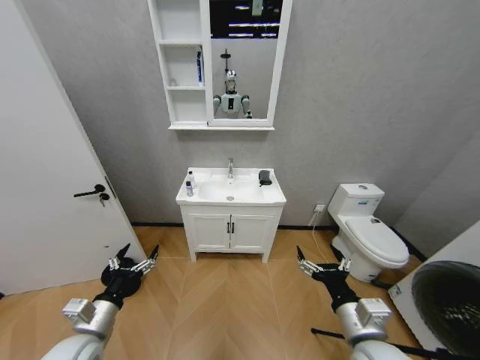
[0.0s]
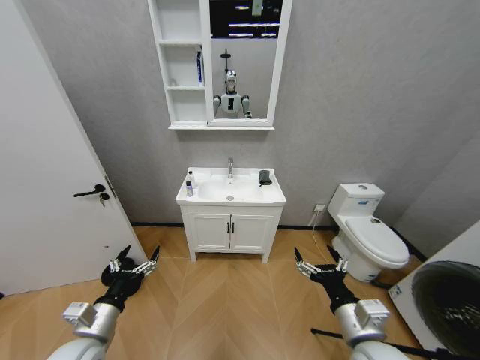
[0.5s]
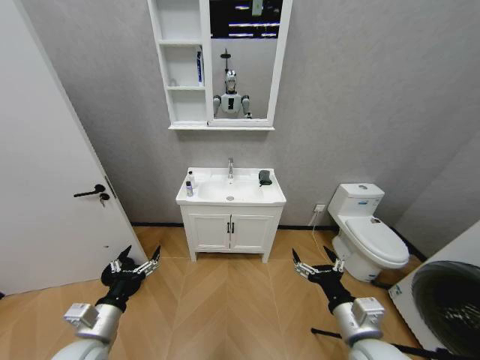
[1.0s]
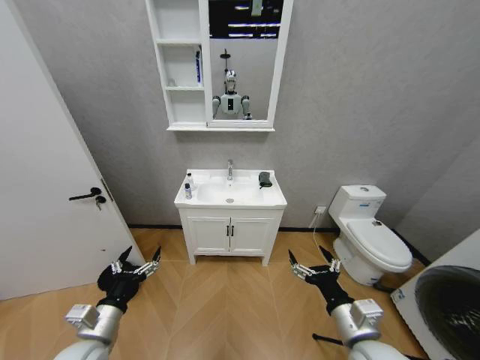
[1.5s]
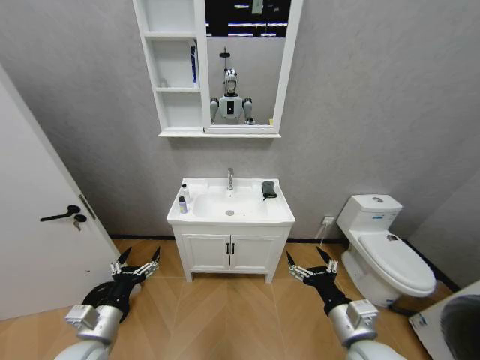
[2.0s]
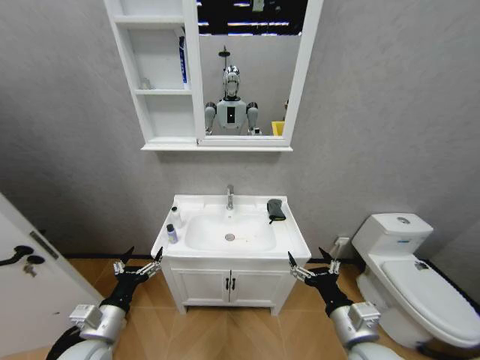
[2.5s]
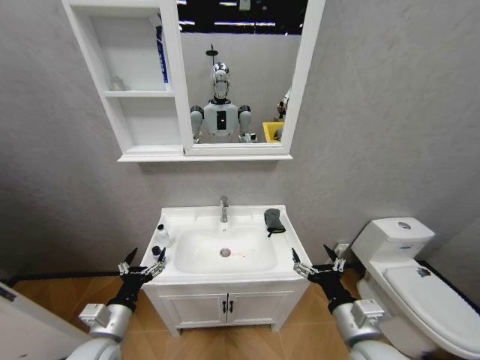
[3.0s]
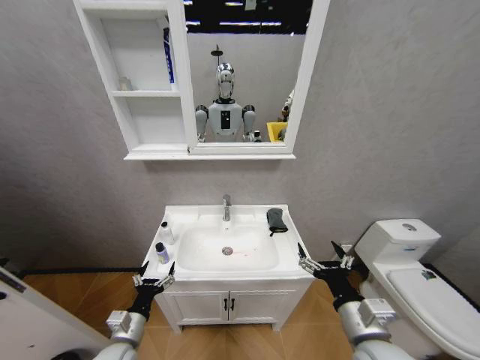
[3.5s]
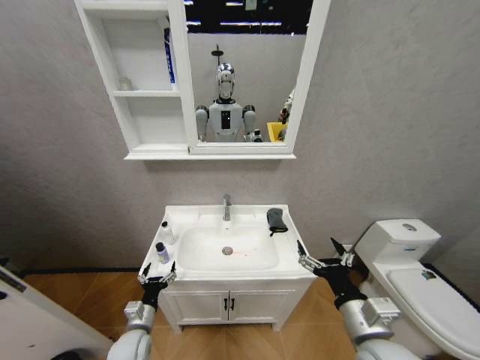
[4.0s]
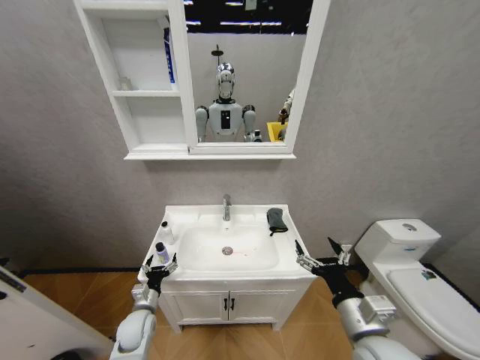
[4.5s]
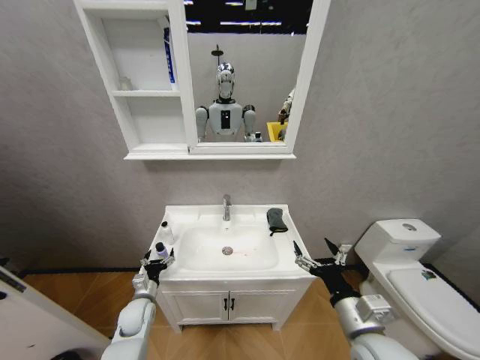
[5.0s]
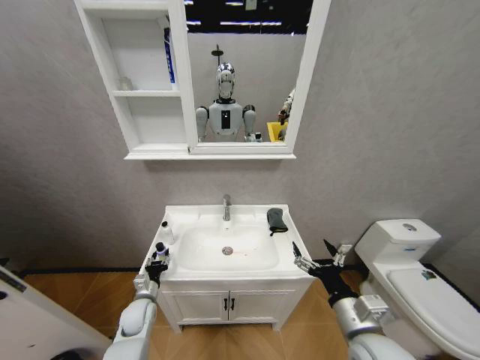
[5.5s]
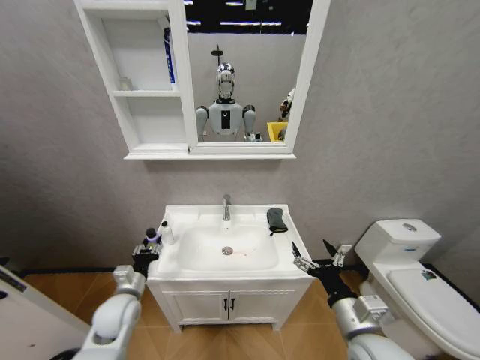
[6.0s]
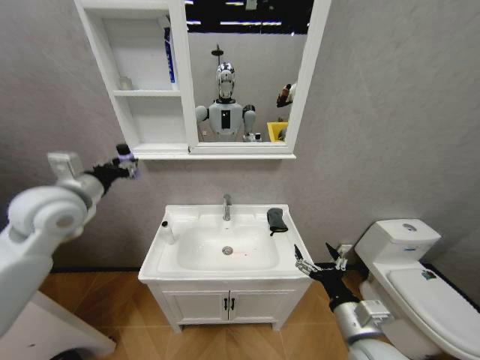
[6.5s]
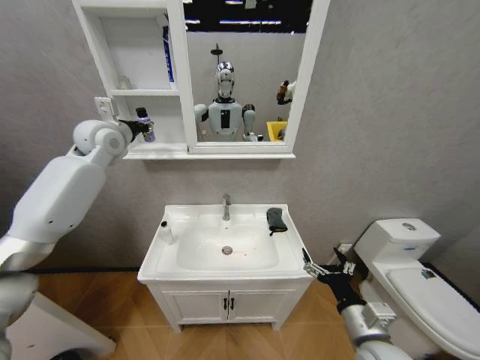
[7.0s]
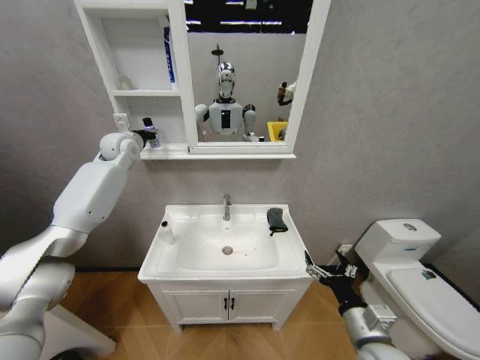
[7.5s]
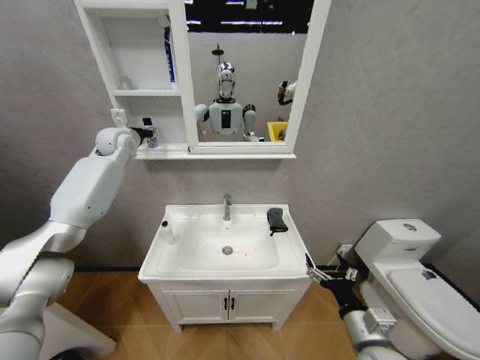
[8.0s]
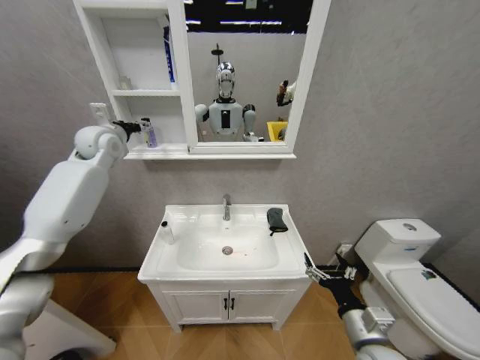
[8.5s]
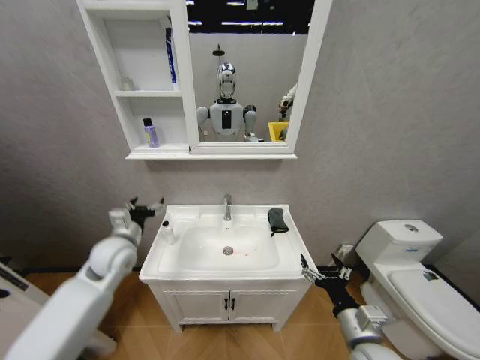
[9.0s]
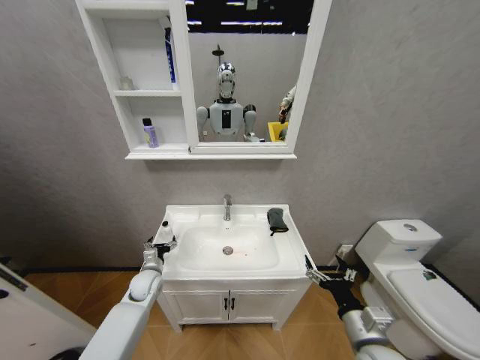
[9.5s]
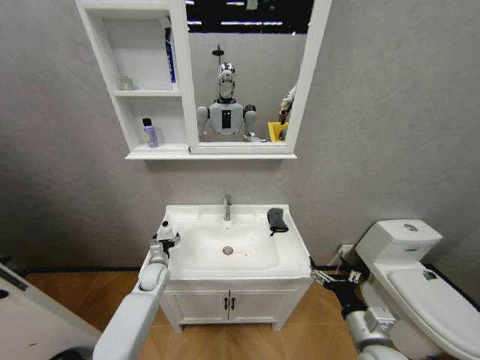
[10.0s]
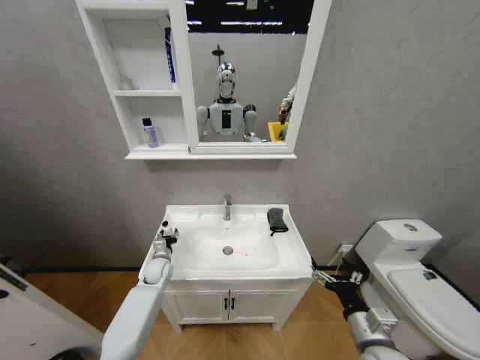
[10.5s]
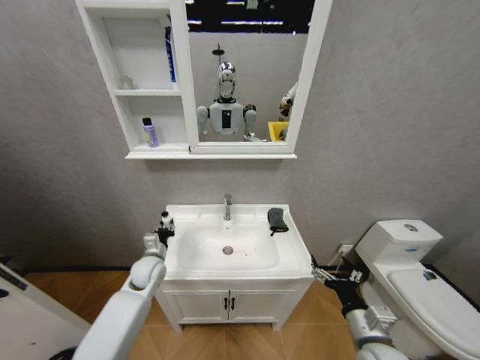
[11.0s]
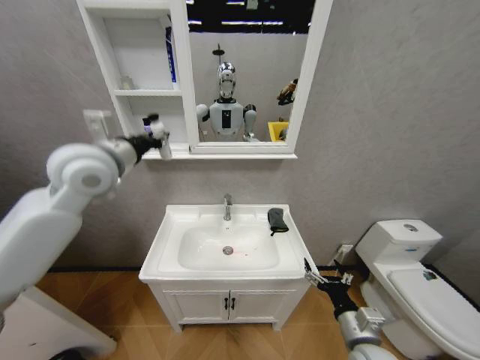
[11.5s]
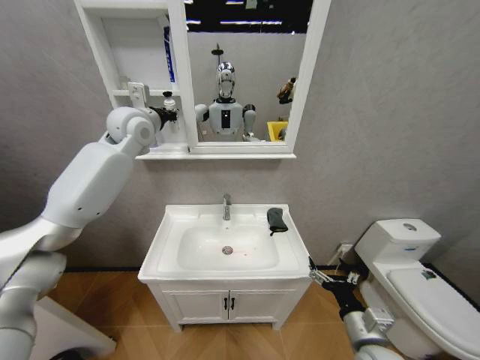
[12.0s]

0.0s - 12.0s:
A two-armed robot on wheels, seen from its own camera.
Task of the whole recording: Move facial cleanser and shampoo from washbasin to cabinet, then wipe washbasin with towel.
2.0s - 4.0s: The left gripper moves downward and forward, some 15 cm.
4.0s - 6.0s: The left gripper goes roughly 15 cm upward, and closes its fingers.
6.0s - 8.0s: The left gripper goes about 40 cm upward and forward. Meanwhile the right gripper changes place by about 5 cm.
8.0s - 10.0s: The left gripper travels downward by some 40 cm, and opens.
10.0s - 12.0s: The left gripper heads upward, covering about 50 cm, and closes.

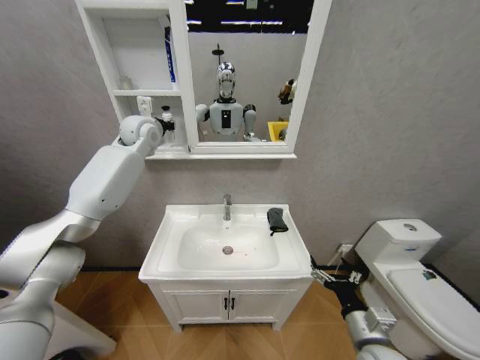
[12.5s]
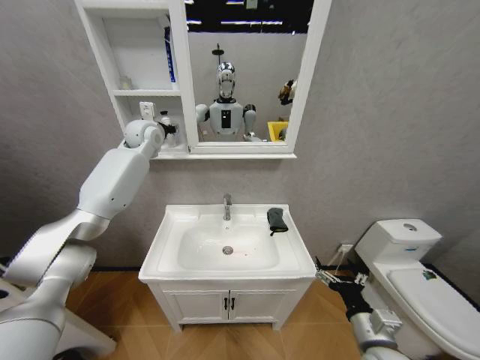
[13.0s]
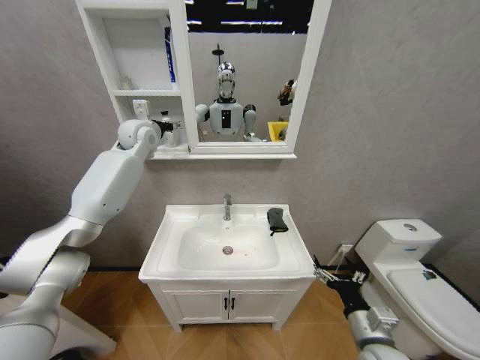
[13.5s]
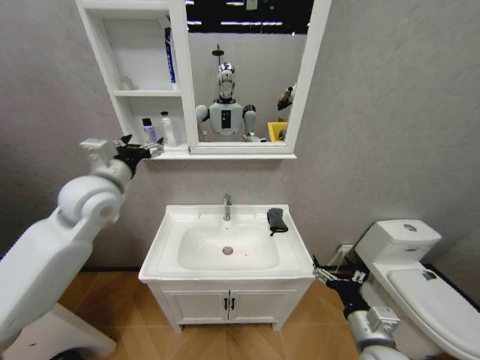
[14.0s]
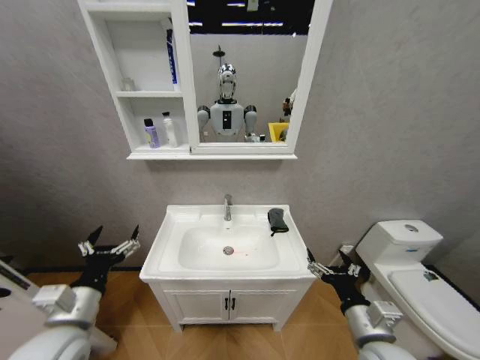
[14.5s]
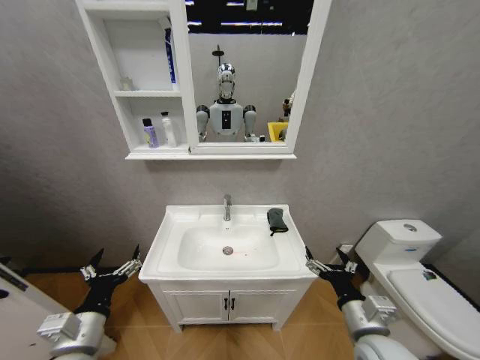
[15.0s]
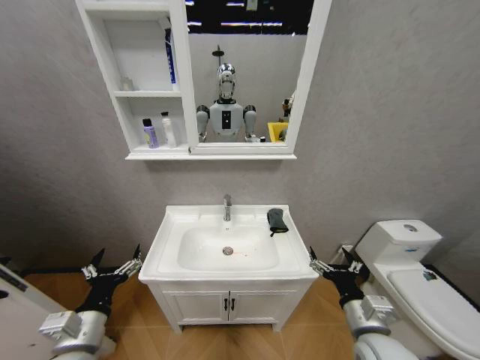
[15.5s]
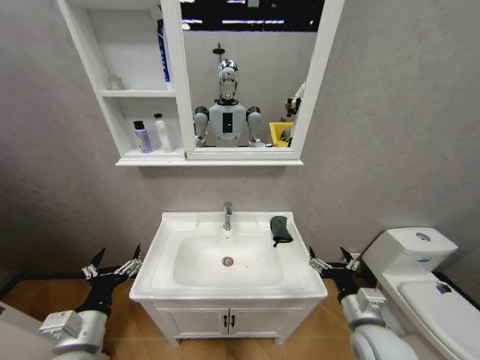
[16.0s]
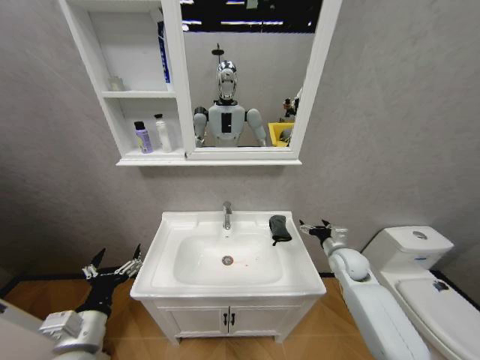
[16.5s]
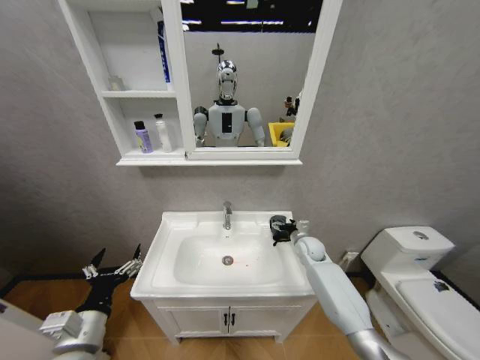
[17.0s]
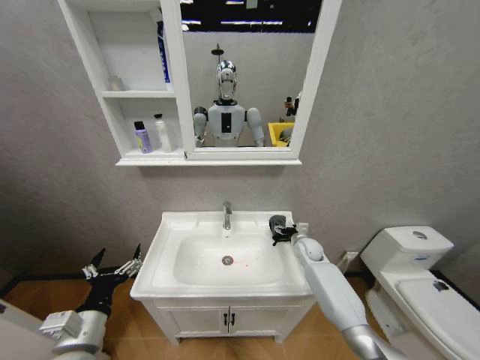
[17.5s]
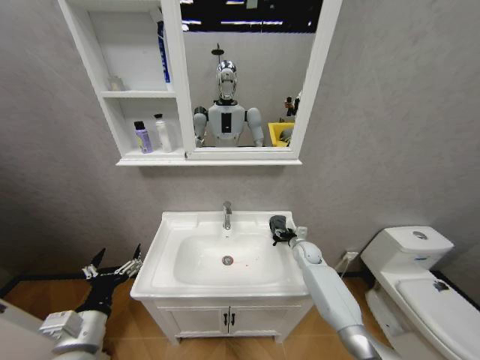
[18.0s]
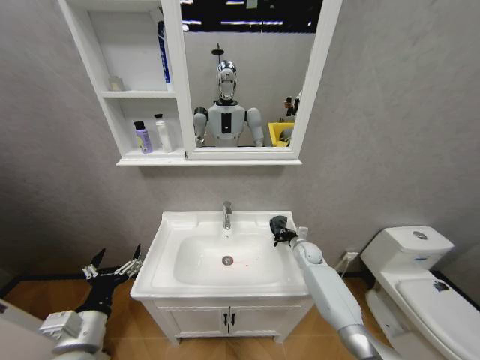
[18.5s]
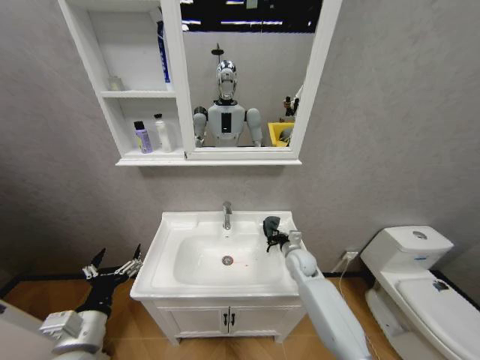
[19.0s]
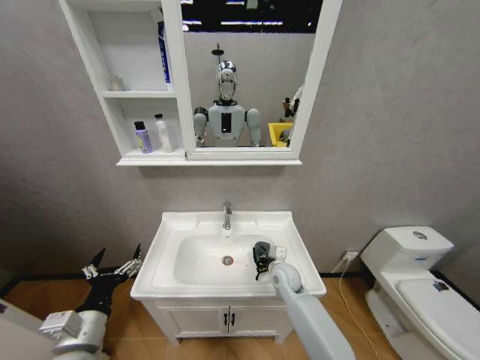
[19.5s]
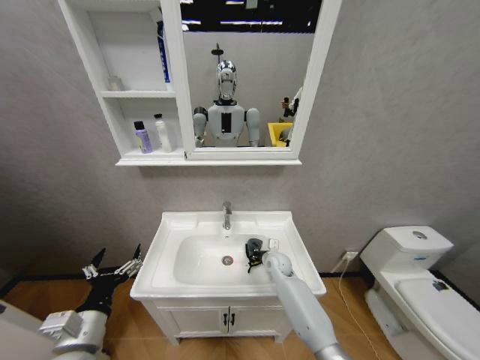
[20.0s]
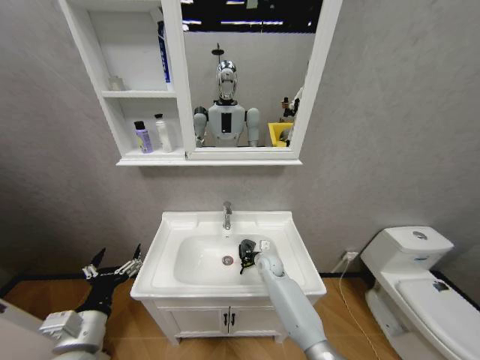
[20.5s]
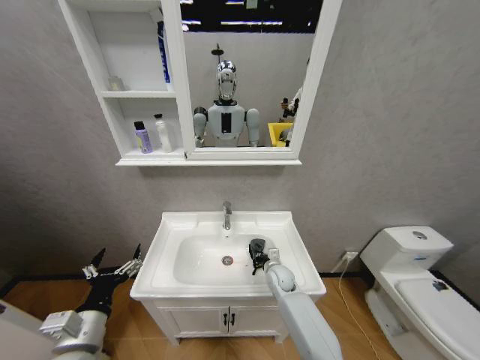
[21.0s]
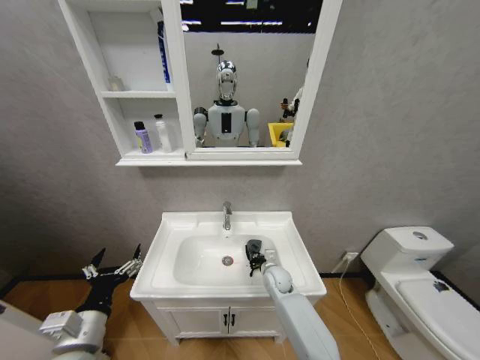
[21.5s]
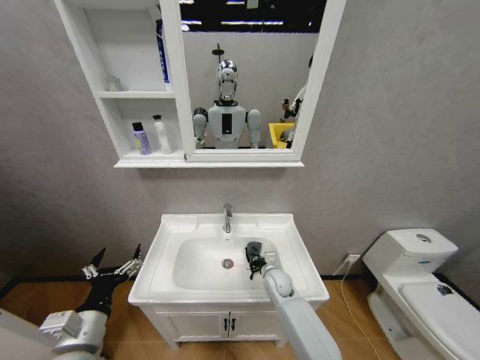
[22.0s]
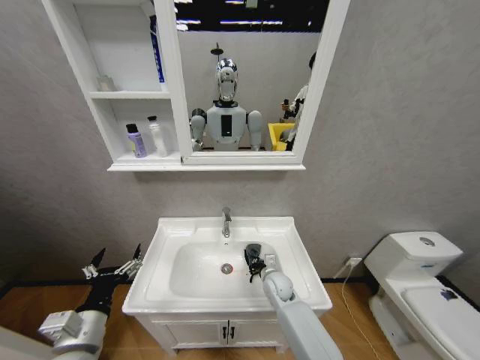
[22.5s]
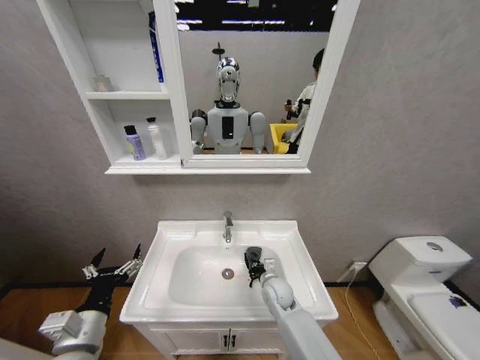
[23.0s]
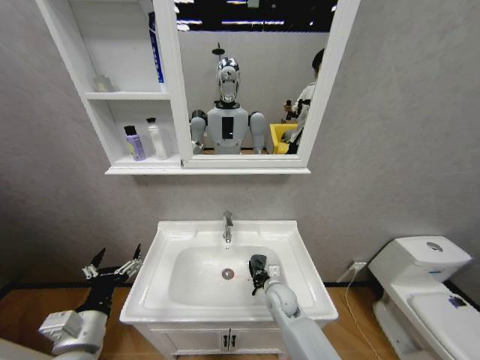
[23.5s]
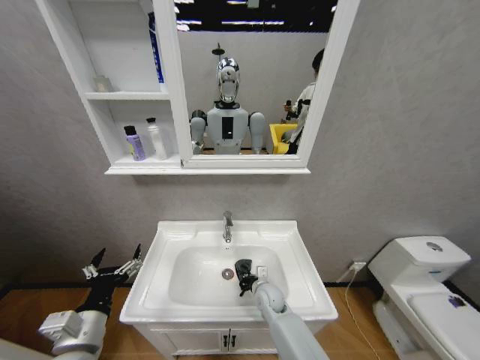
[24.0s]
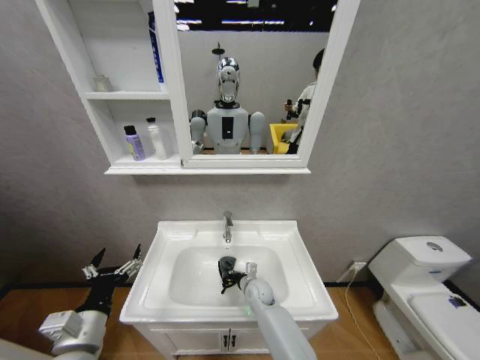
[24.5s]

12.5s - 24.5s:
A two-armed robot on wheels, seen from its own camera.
Task of the whole recording: Move facial cleanser and shampoo from washbasin to cabinet, then wipe washbasin with towel.
12.5s - 14.5s: The right gripper ends up about 5 cm from where it was. The left gripper is displaced backward and downward by roughly 50 cm, and opens its fingers.
14.5s - 16.5s: The right gripper moves forward, roughly 25 cm. Meanwhile the left gripper changes place by approximately 5 cm.
16.5s - 18.5s: The right gripper moves forward, downward and to the left, some 15 cm, and closes up.
18.5s - 20.5s: The right gripper is displaced to the left by roughly 15 cm.
20.5s - 22.5s: The right gripper travels backward by approximately 10 cm.
22.5s - 24.5s: The right gripper shifts roughly 5 cm to the left.

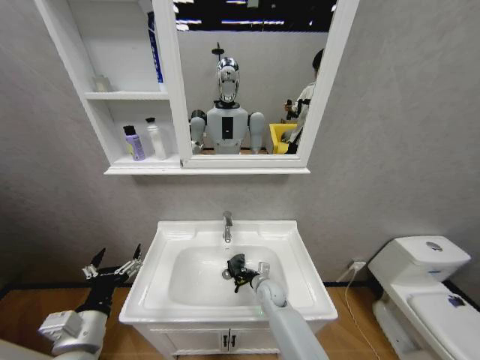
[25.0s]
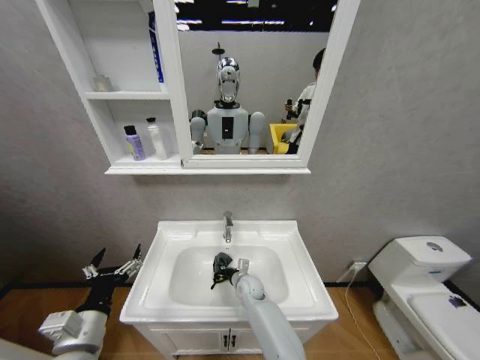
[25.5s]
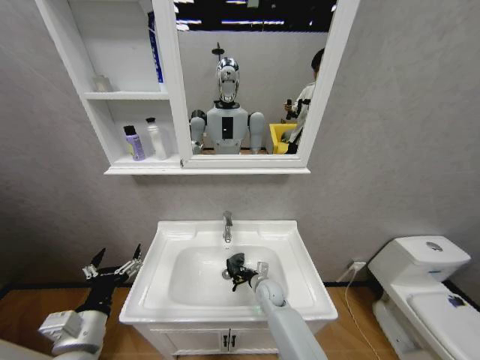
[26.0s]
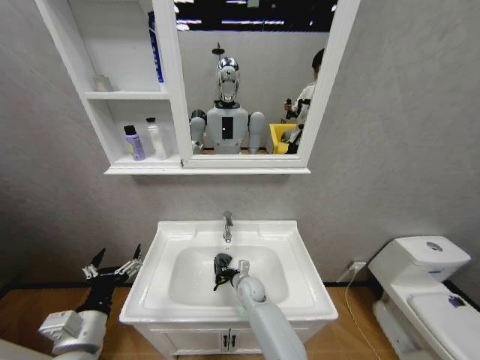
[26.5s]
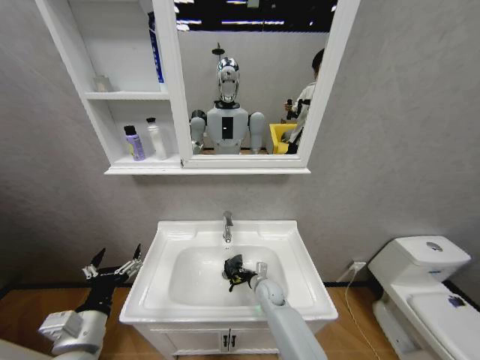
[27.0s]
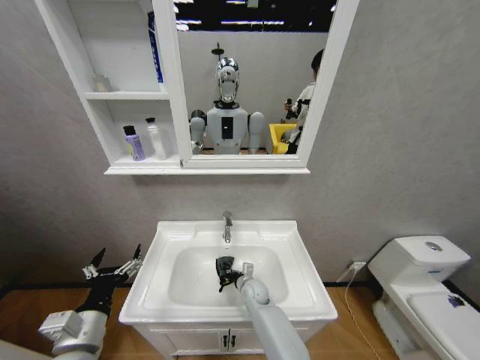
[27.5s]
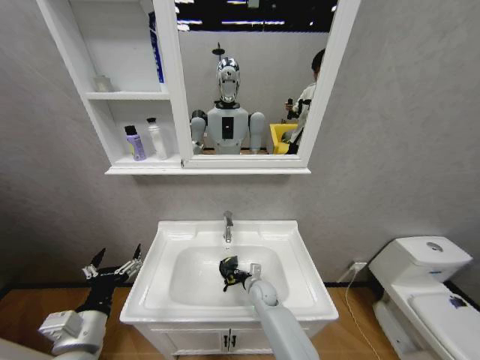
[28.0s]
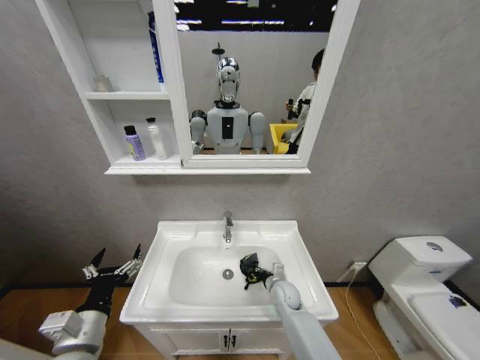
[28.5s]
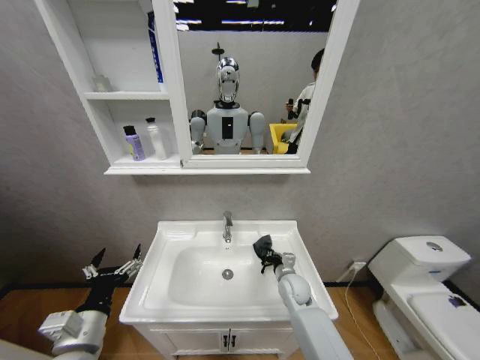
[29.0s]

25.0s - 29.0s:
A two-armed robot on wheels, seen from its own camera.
Task of the whole recording: Move facial cleanser and shampoo from washbasin to cabinet, then wipe washbasin with towel.
27.0s - 29.0s: The right gripper shifts some 10 cm to the right and upward.
